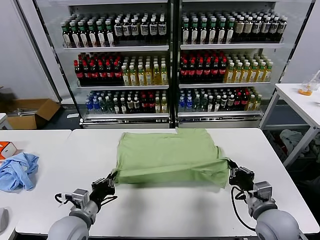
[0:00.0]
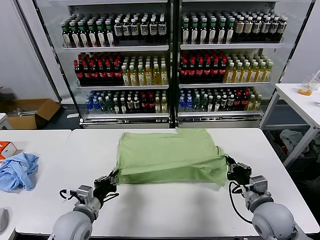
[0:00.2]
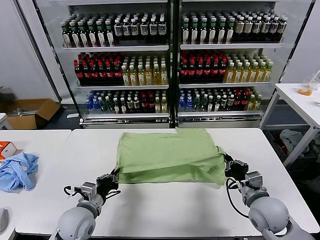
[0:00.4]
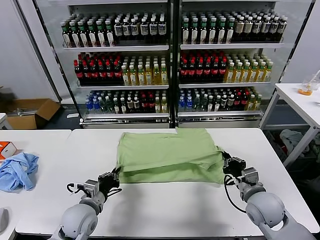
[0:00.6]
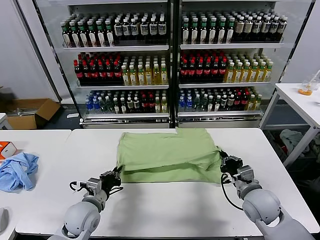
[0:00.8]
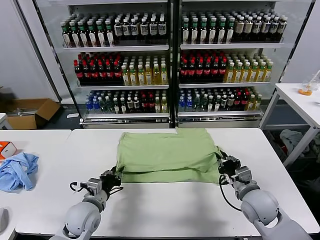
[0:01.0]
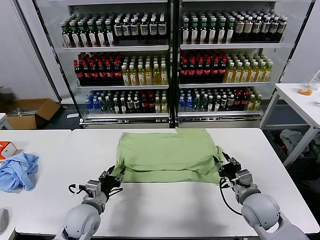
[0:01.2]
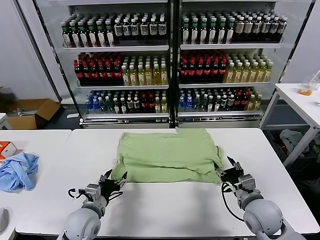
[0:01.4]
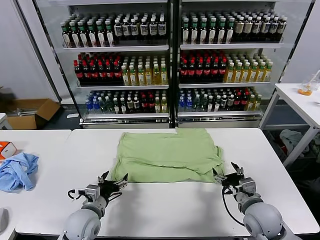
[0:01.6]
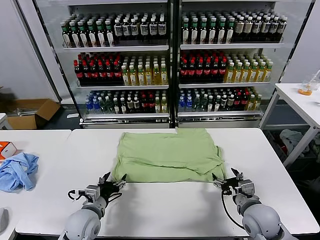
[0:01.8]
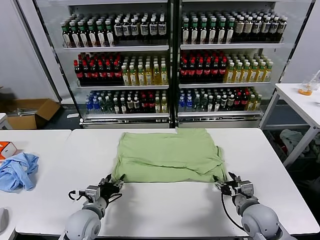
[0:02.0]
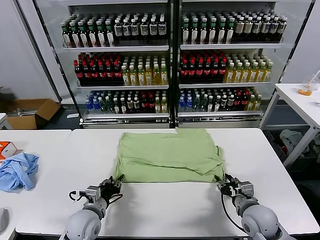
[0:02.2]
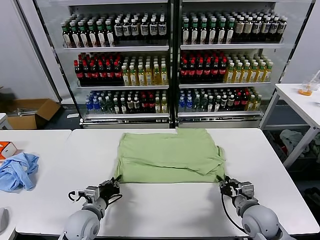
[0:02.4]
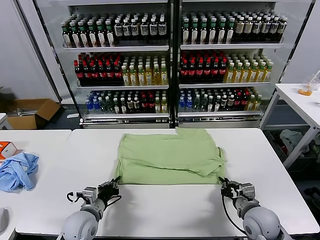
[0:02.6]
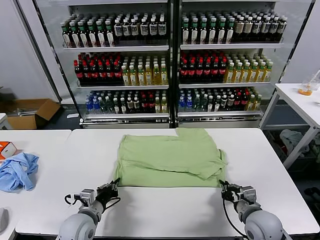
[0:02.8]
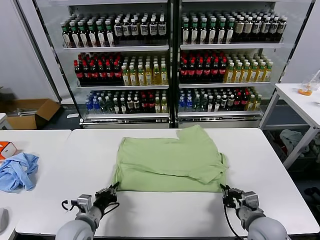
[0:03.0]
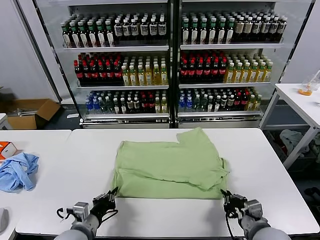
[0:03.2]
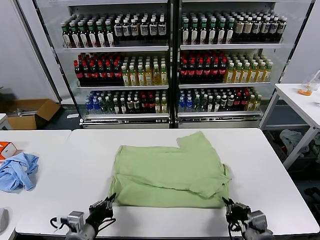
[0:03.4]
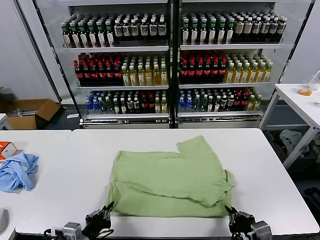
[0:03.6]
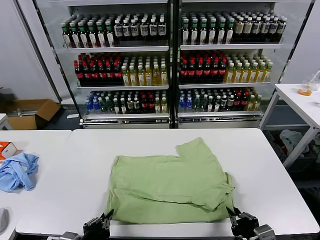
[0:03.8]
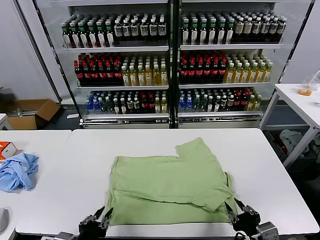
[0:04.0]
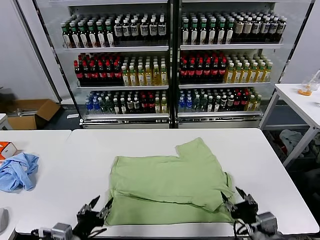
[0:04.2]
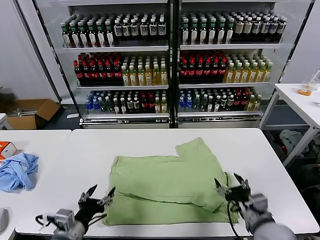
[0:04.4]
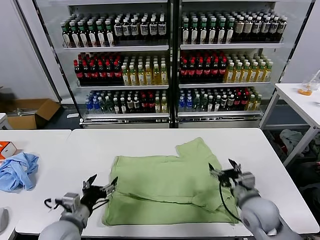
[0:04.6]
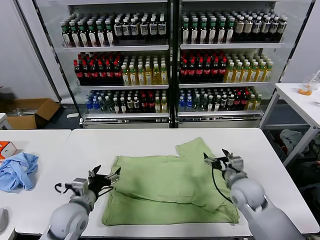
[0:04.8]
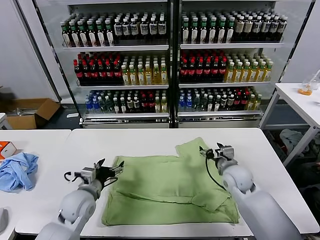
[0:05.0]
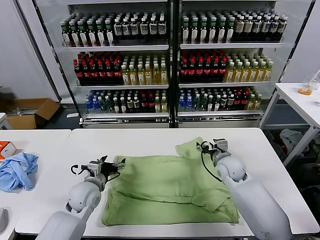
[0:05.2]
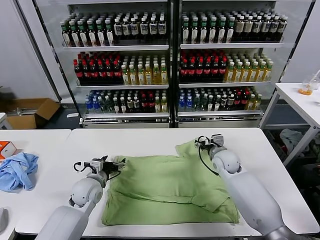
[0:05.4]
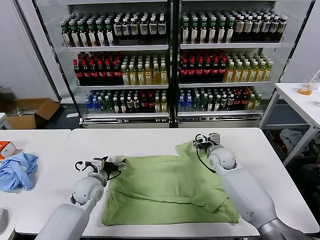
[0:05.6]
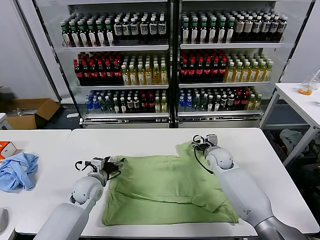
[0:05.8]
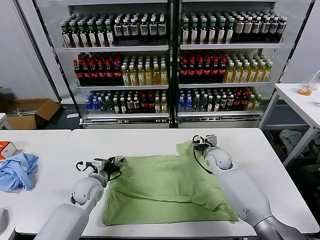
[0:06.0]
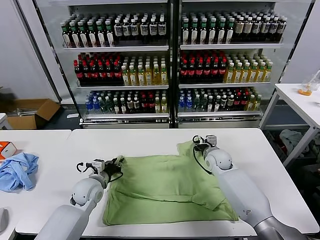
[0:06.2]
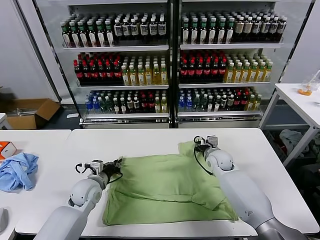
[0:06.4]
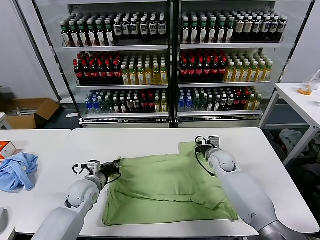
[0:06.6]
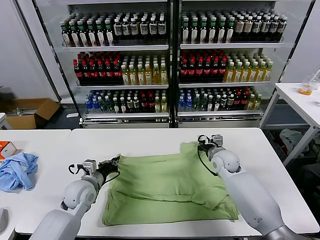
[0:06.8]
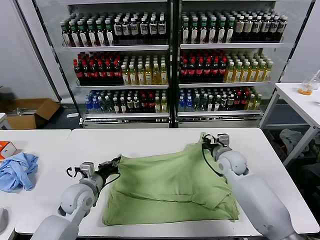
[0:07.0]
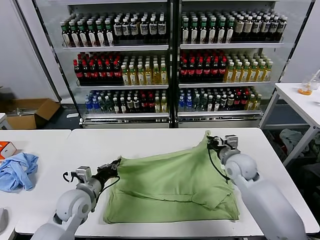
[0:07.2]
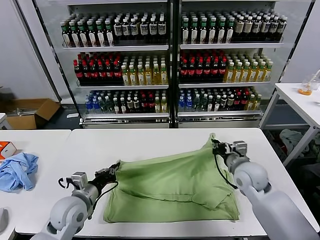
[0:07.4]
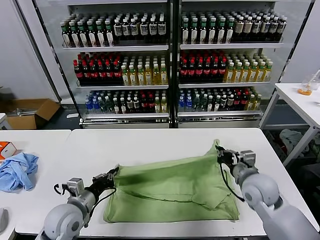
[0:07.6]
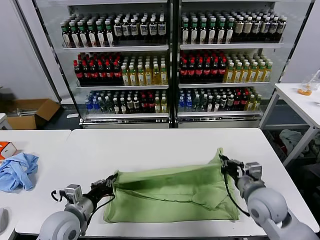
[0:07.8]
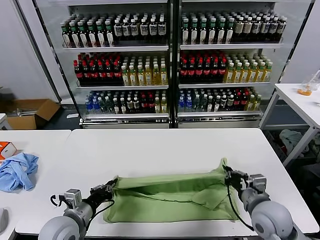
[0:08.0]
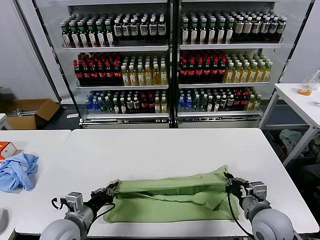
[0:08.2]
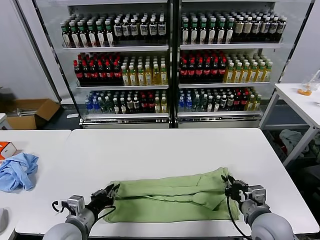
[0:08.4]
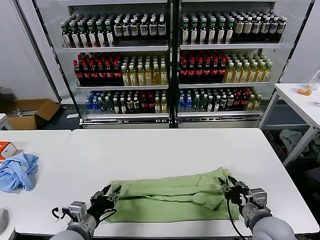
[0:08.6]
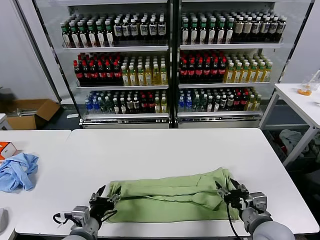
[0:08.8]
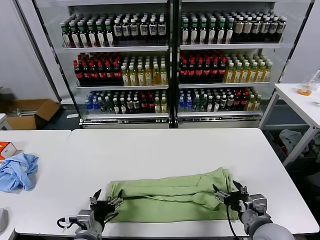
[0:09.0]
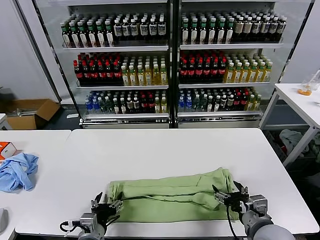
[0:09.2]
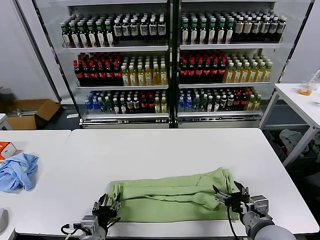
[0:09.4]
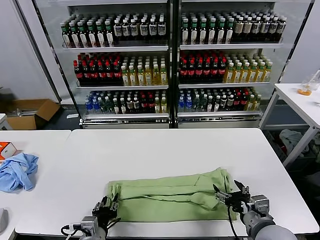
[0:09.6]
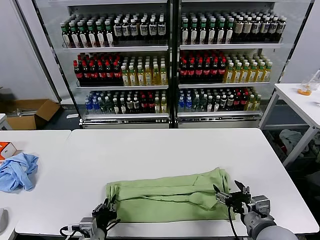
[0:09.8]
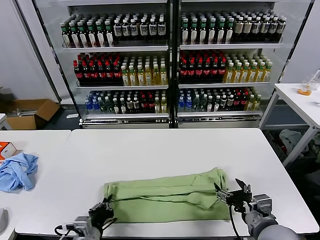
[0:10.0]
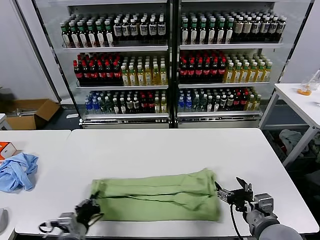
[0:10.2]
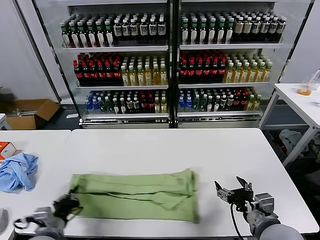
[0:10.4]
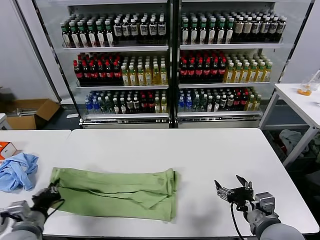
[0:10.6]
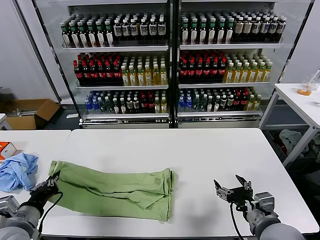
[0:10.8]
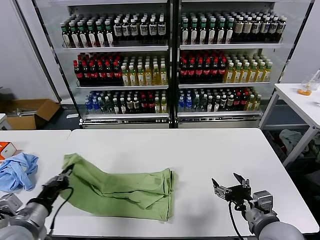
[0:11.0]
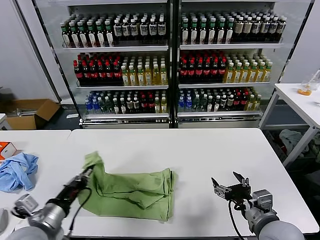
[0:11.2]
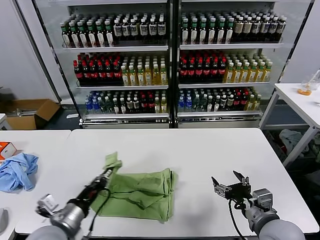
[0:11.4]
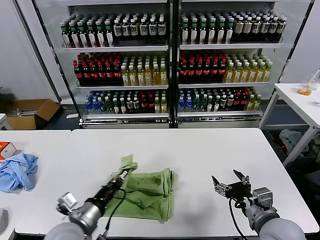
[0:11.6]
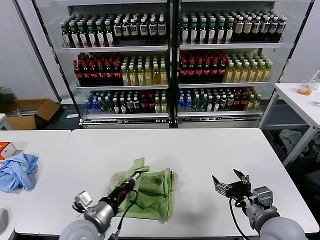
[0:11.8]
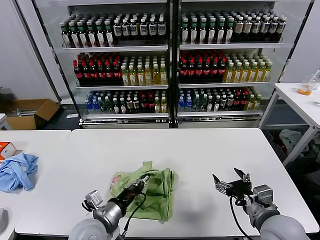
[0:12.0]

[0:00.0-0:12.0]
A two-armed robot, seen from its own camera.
Task of the whole recording: fold and organize the clothes.
Step, 0:01.6 to 0:04.0: Drag the clothes downward with both gripper.
Step, 0:04.2 to 0:06.6: use both grippers simultaneously to clamp the upper edge of the clothing fabric.
Step, 0:06.8 to 0:08.6: use both grippers to drag the upper edge of the fabric backward and fold it over the lower edge.
Step, 0:09.0 to 0:09.8: use the left gripper to clamp the left edge of the fabric.
0:00.0 to 0:01.6: The right gripper opens, while the left gripper opens its fingers.
0:01.6 to 0:03.0: Both grippers travel together backward, roughly 5 cm. The right gripper closes its fingers; the left gripper closes.
0:03.0 to 0:04.4: The right gripper reaches roughly 10 cm backward, then returns, and opens; the left gripper goes some 5 cm upward, goes backward and returns, some 10 cm each way, and opens.
0:04.4 to 0:06.0: Both grippers travel together forward, approximately 25 cm. The right gripper closes its fingers. Meanwhile the left gripper closes up.
0:06.0 to 0:07.6: Both grippers travel together backward and upward, roughly 15 cm. The right gripper closes its fingers. Meanwhile the left gripper closes.
0:07.6 to 0:09.0: The right gripper shifts approximately 10 cm backward, and opens up, while the left gripper moves backward and to the right, approximately 10 cm, and opens its fingers.
0:09.0 to 0:10.4: The left gripper moves to the left, roughly 10 cm, and closes up.
0:10.4 to 0:12.0: The left gripper travels to the right by approximately 15 cm.

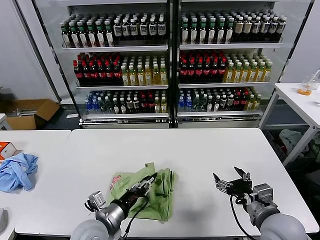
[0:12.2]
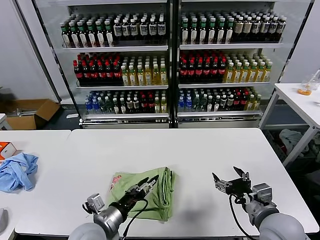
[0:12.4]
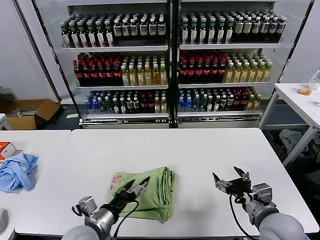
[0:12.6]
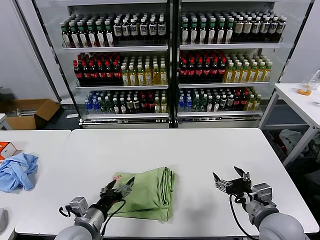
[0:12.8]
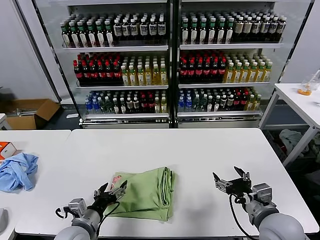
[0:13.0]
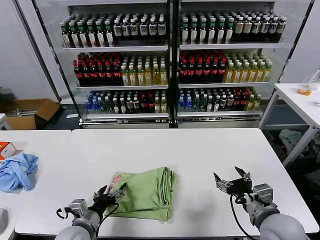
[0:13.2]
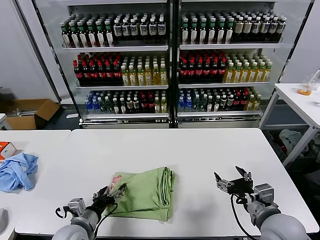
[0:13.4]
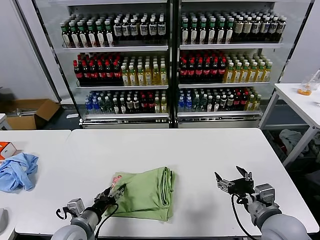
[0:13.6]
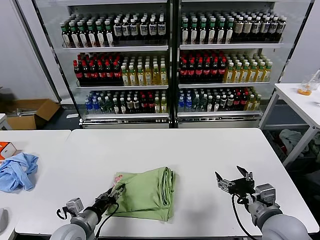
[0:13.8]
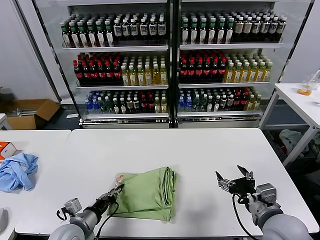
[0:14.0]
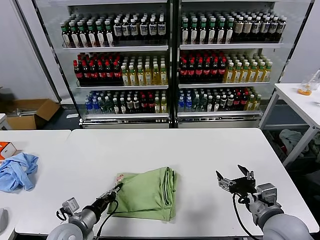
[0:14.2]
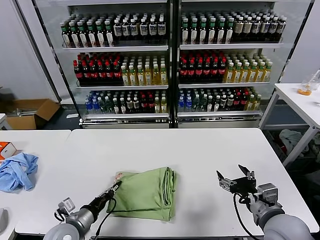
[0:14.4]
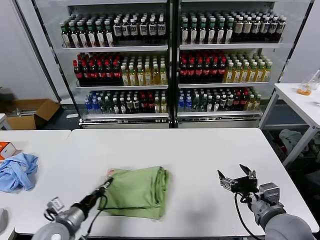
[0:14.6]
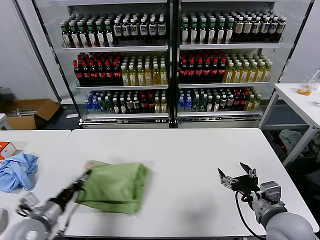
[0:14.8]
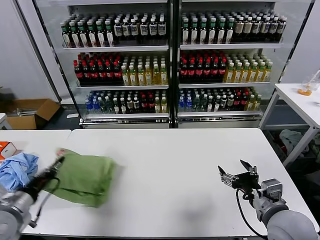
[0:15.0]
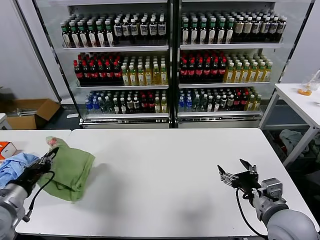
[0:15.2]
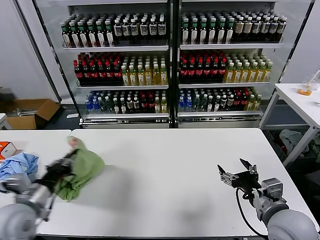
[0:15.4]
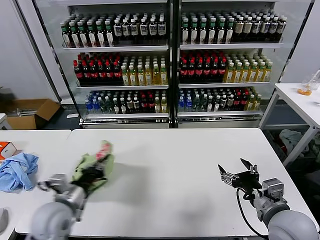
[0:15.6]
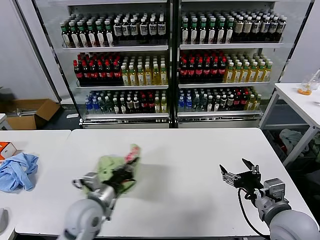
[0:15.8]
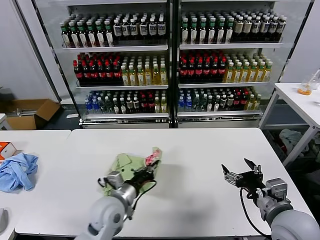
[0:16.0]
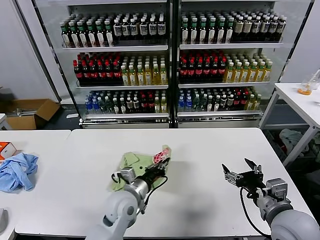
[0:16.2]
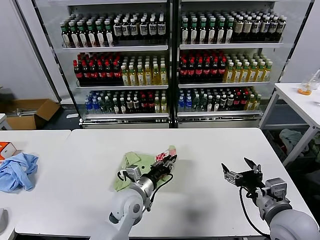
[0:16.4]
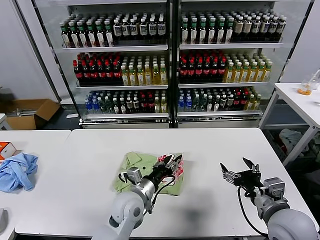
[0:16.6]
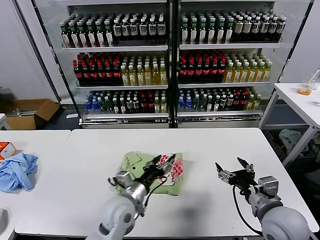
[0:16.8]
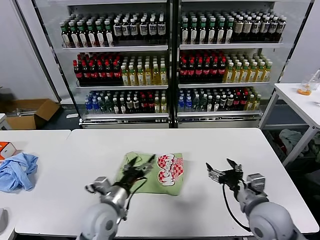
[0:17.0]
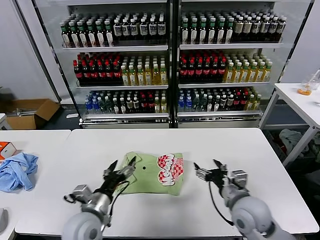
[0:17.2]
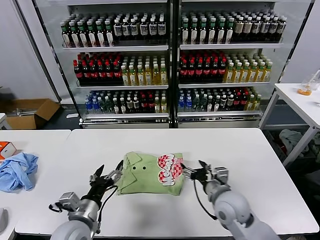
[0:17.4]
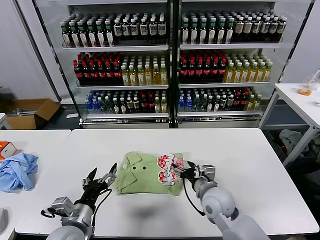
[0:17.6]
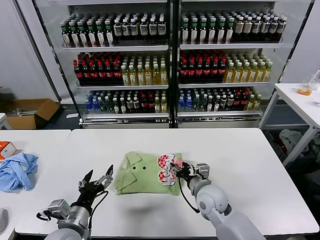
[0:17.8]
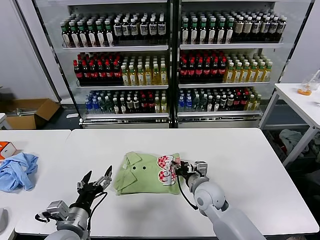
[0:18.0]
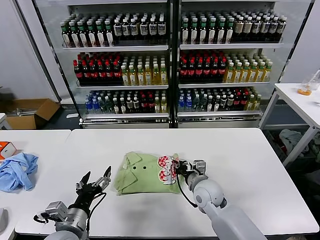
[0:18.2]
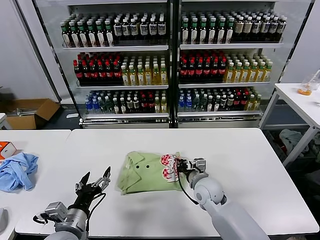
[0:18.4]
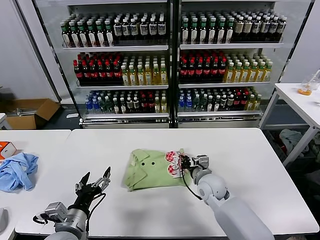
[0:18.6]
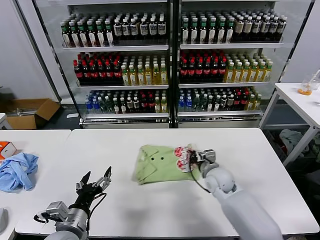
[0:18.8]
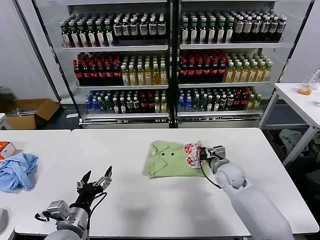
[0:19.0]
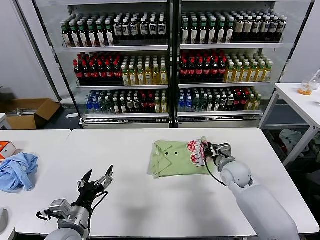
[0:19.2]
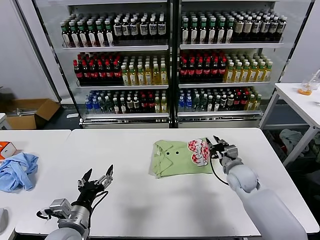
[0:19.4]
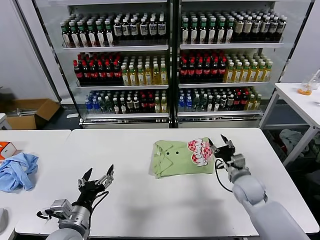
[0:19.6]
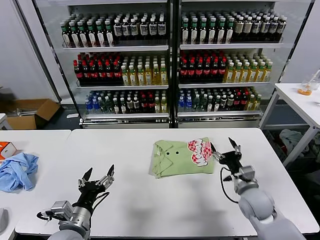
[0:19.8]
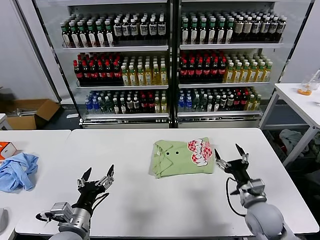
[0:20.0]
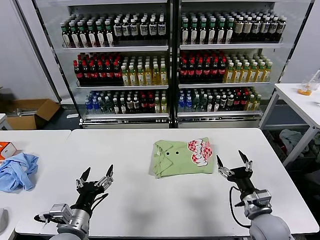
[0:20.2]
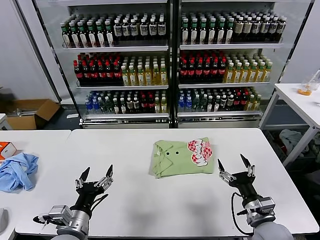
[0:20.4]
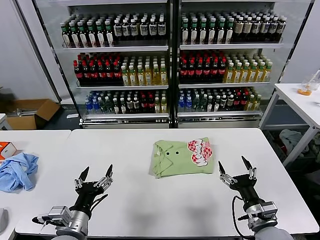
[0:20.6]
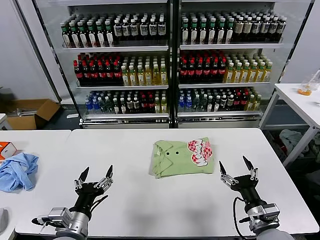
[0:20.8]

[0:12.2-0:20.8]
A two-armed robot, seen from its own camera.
Task of the whole recording: fold and organize the clothes.
Step, 0:12.6 to 0:16.6: Flip the folded clothes over with left gripper.
Step, 0:16.8 to 0:19.4: Drag the clothes to the center of the table.
0:12.2 to 0:13.6: The left gripper shifts some 10 cm to the left.
0:13.6 to 0:15.0: The left gripper shifts roughly 20 cm to the left and upward, and closes its fingers.
0:15.0 to 0:16.6: The left gripper heads to the right, covering some 30 cm, and opens up.
0:16.6 to 0:18.0: The right gripper travels to the left, forward and downward by about 25 cm, and closes its fingers. The left gripper shifts roughly 20 cm to the left and backward, and opens.
0:18.0 to 0:19.4: The right gripper travels to the right and forward by roughly 15 cm.
0:19.4 to 0:20.8: The right gripper travels backward by approximately 20 cm, and opens its fingers.
